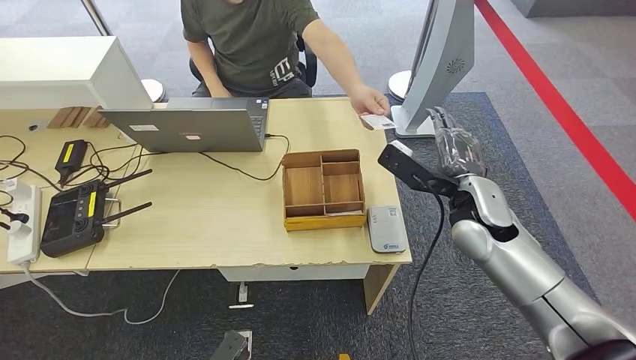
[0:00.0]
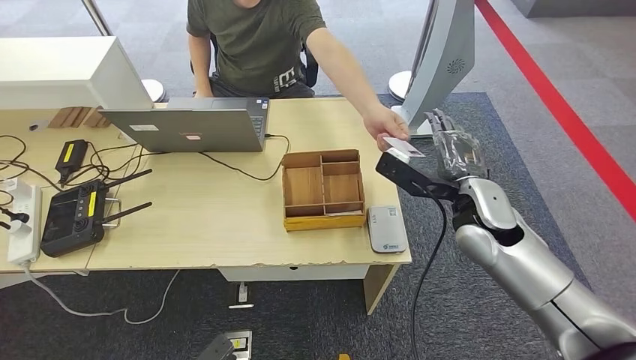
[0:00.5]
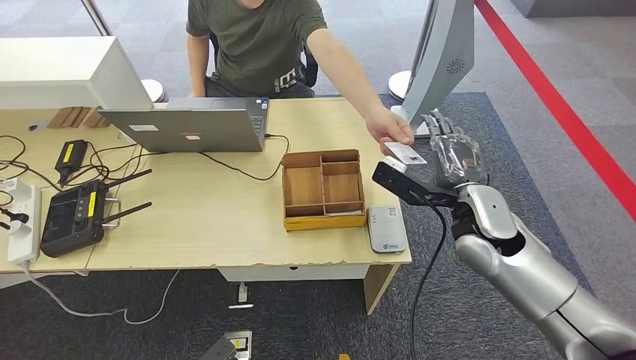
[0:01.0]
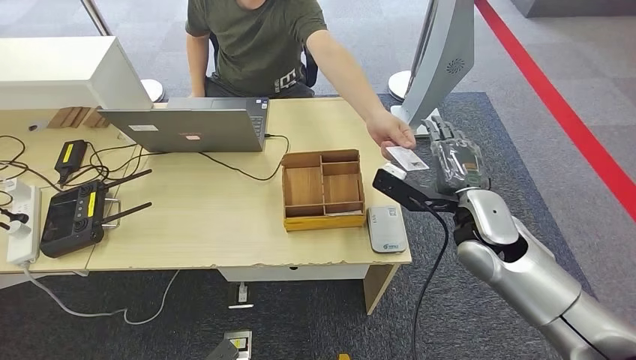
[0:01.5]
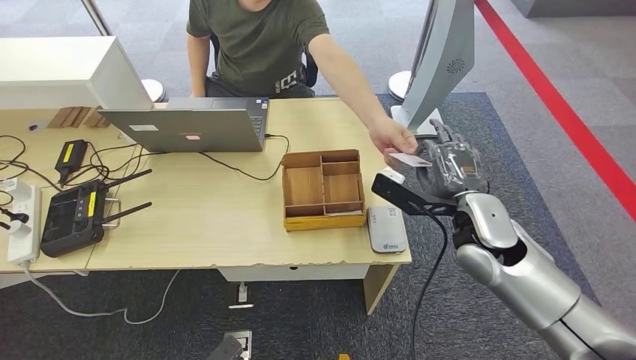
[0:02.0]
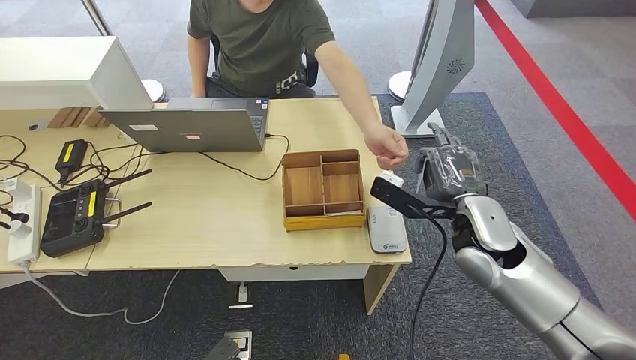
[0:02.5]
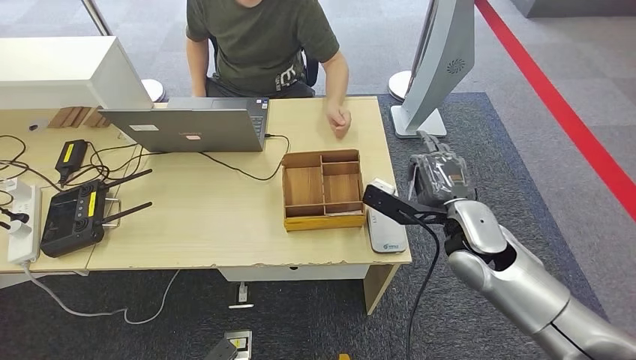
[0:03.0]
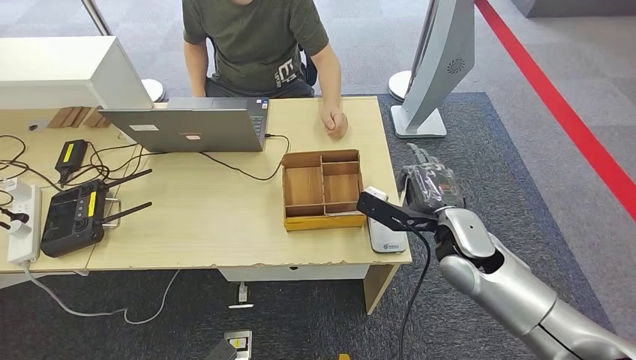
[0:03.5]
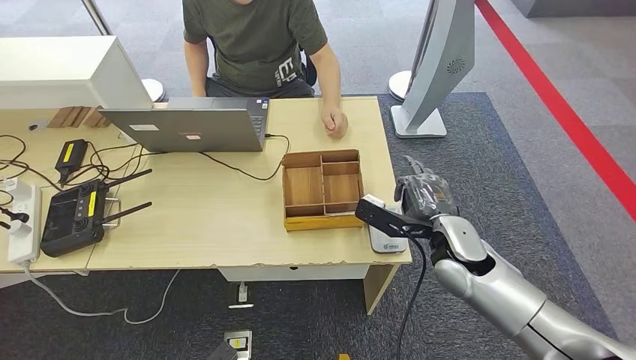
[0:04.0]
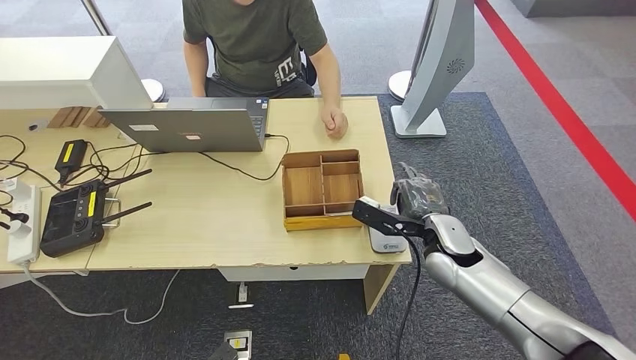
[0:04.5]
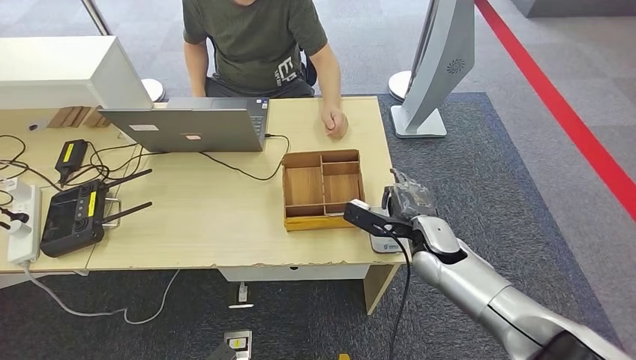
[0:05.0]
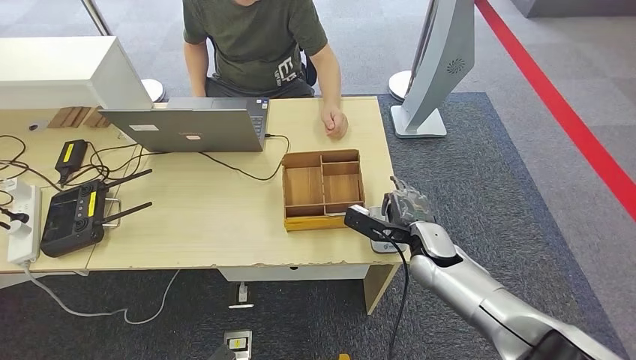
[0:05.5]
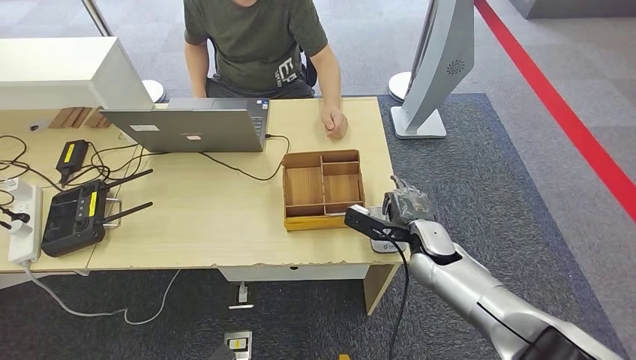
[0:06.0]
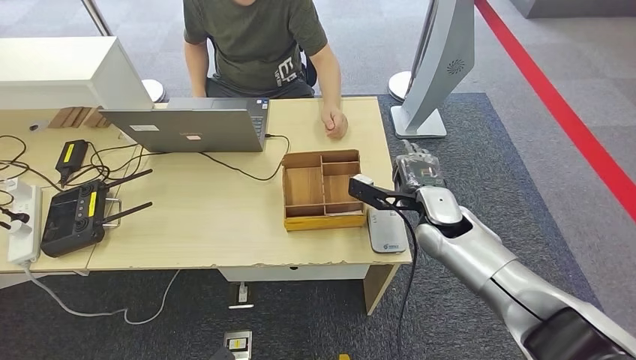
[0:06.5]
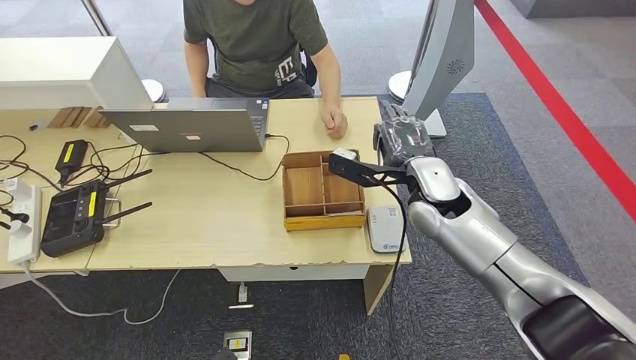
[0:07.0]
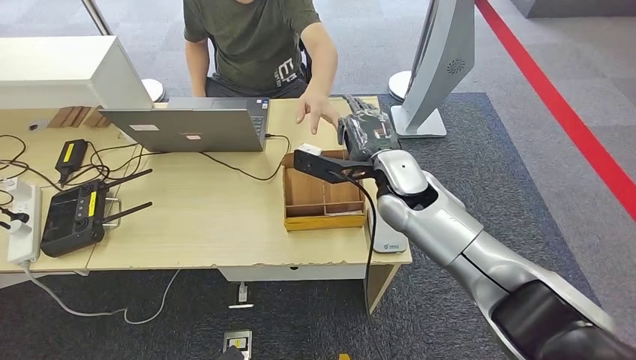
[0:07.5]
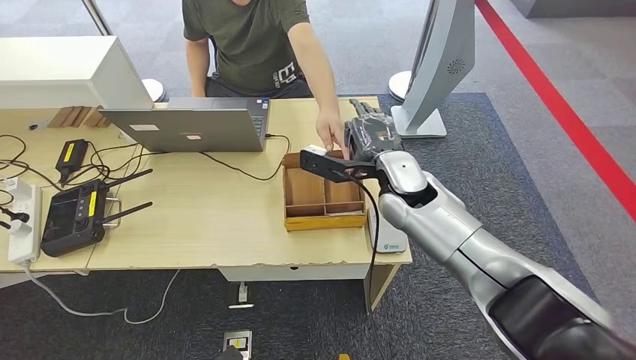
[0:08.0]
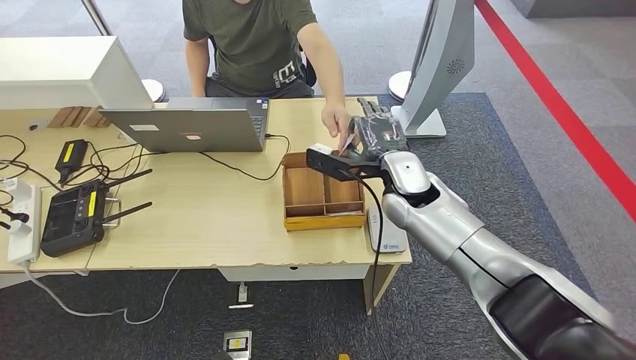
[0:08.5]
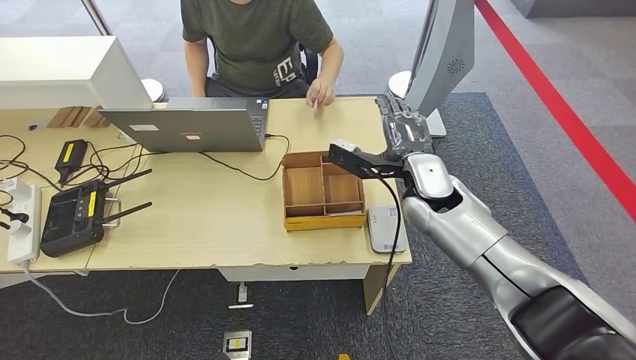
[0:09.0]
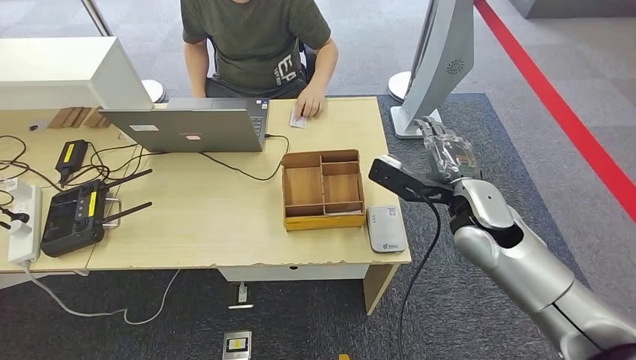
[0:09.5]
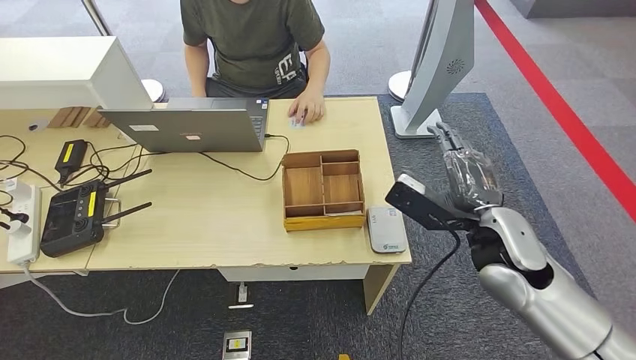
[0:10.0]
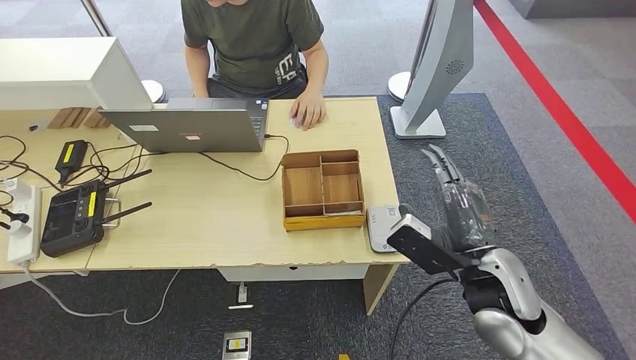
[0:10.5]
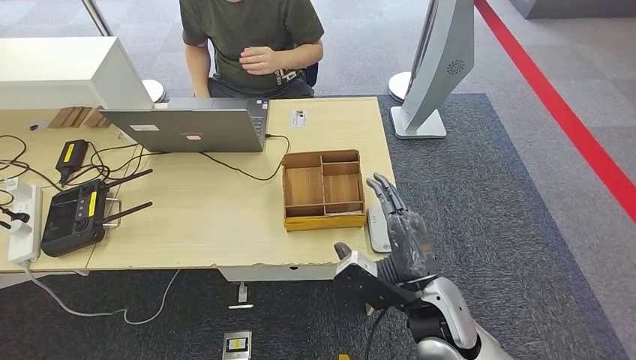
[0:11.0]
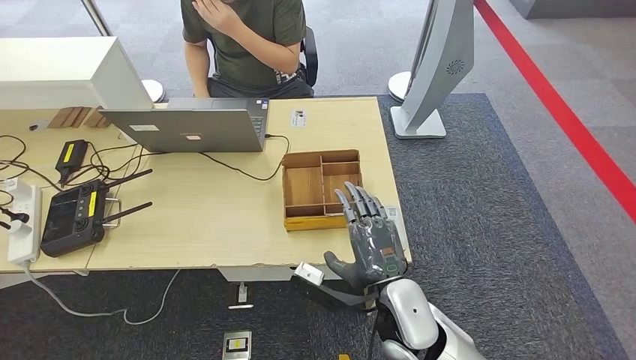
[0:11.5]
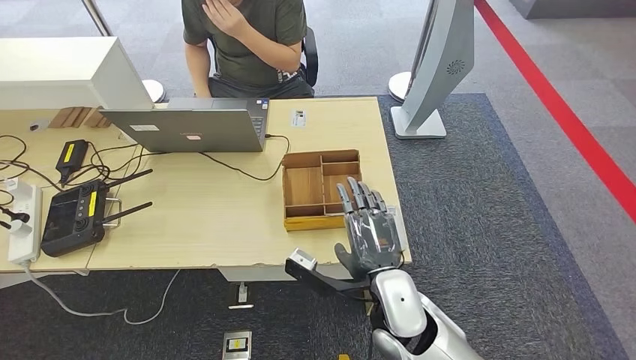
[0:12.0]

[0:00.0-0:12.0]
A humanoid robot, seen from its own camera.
Step, 0:00.0 to 0:02.5: Take the ID card from the person's hand.
Step, 0:03.0 to 0:06.0: Place the ID card on the card reader.
Step, 0:07.0 to 0:09.0: Hand the ID card to the person.
0:00.0 to 0:02.0: The hands move only a little.
0:02.0 to 0:04.0: The right hand moves downward, roughly 5 cm.
0:04.0 to 0:06.0: The right hand moves downward, about 5 cm.
0:06.0 to 0:08.0: The right hand is displaced upward, to the left and forward by approximately 15 cm.
0:08.0 to 0:10.0: The left hand heads backward, covering some 5 cm. Meanwhile the right hand goes approximately 15 cm backward and to the right.
0:10.0 to 0:12.0: The right hand shifts approximately 20 cm to the left and downward.

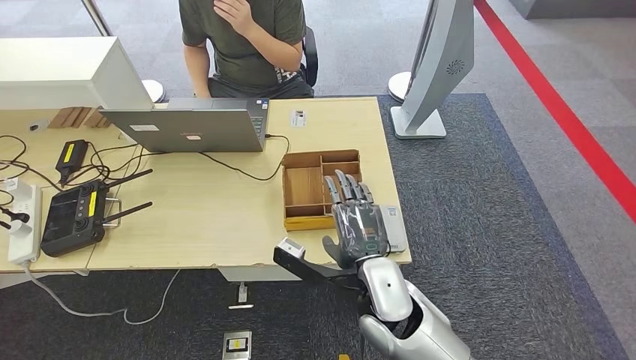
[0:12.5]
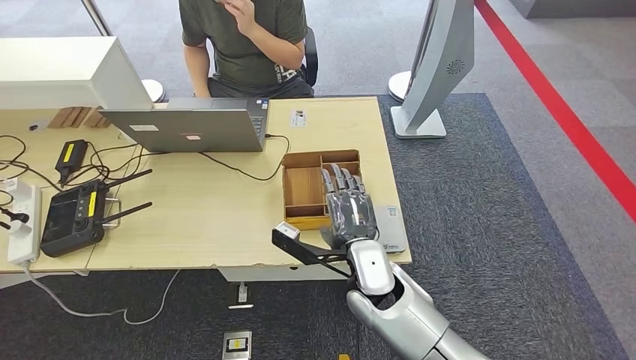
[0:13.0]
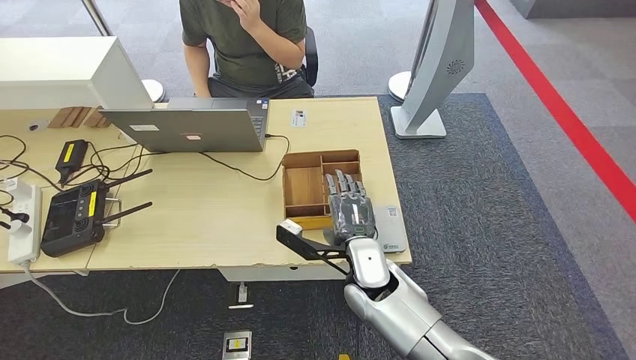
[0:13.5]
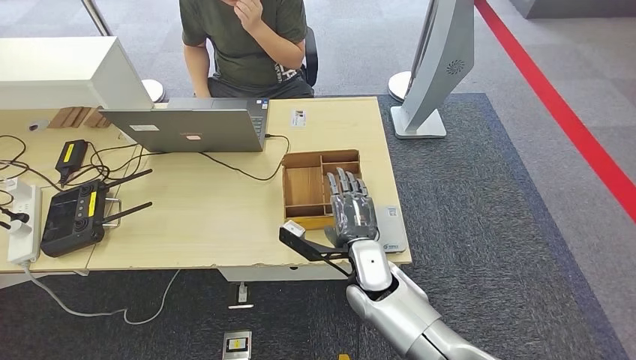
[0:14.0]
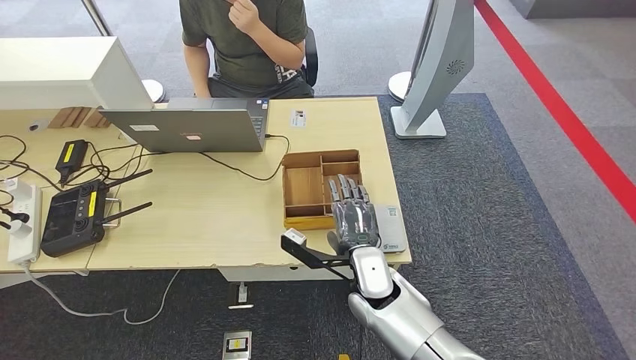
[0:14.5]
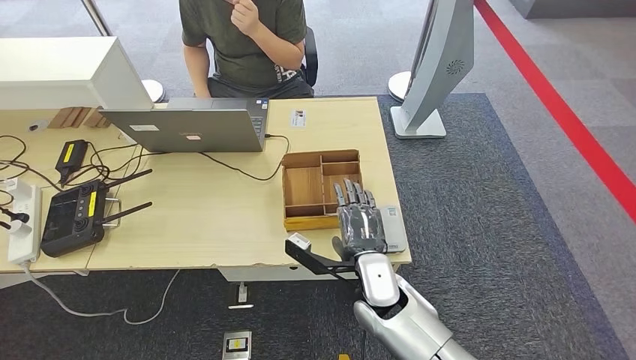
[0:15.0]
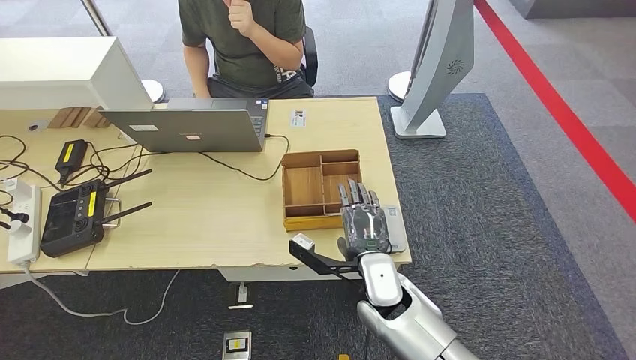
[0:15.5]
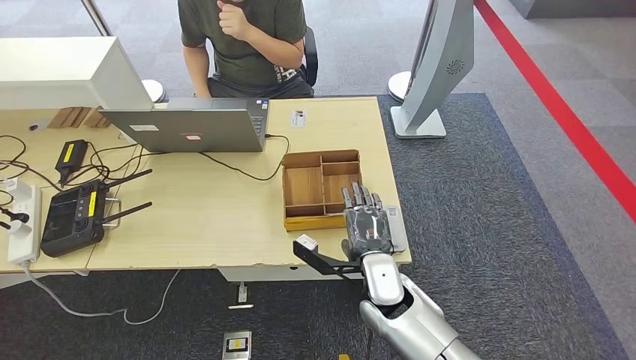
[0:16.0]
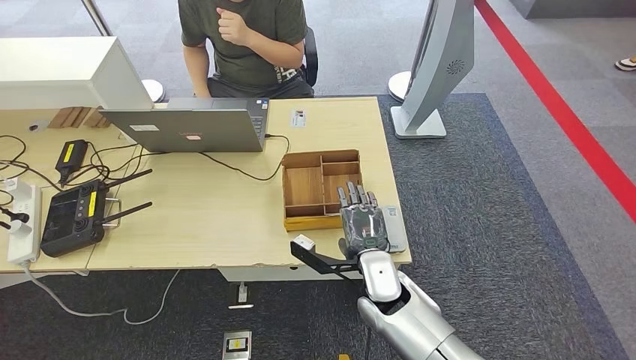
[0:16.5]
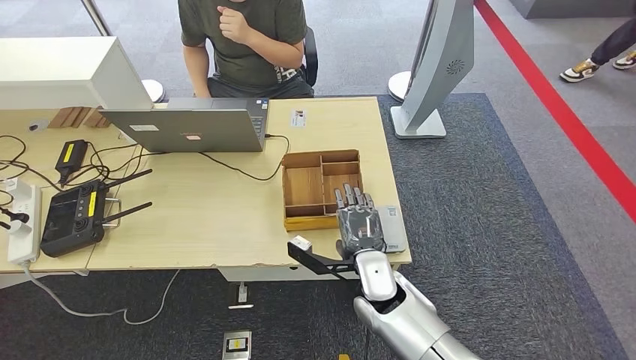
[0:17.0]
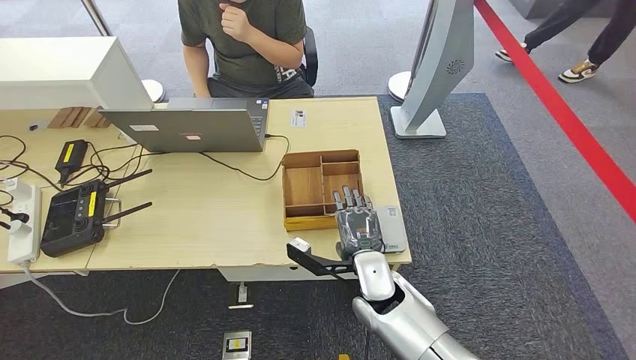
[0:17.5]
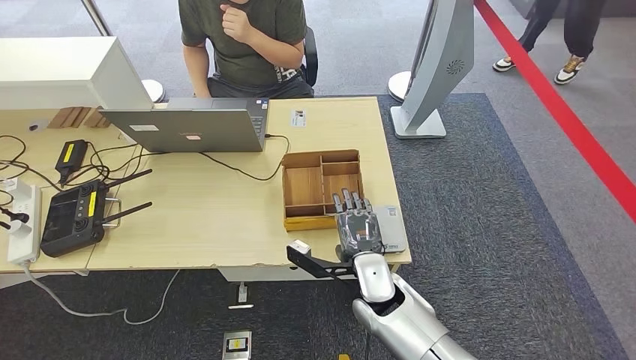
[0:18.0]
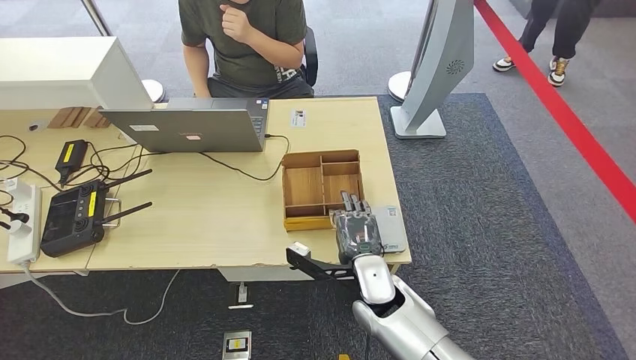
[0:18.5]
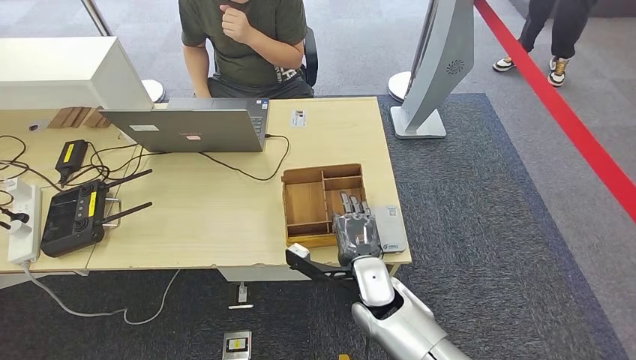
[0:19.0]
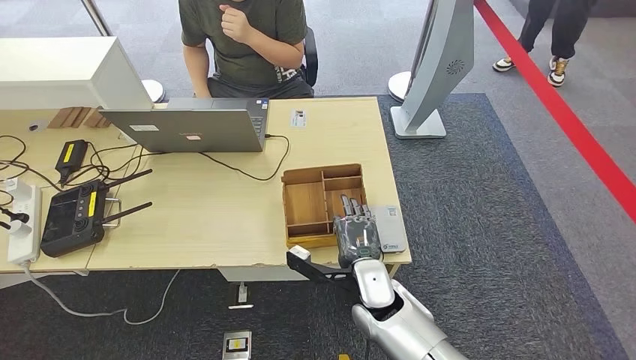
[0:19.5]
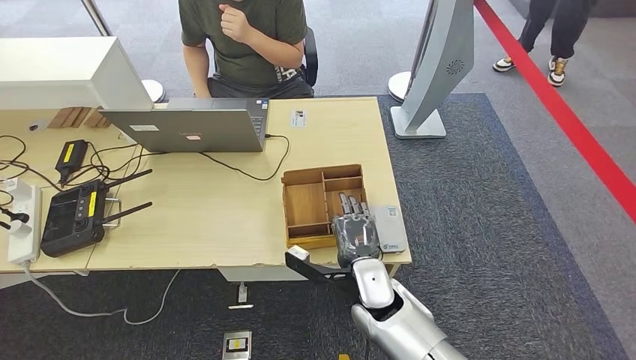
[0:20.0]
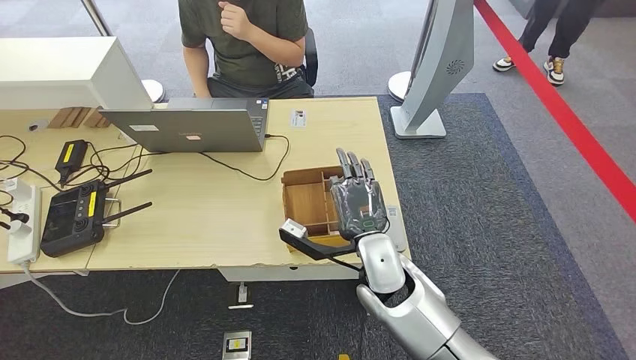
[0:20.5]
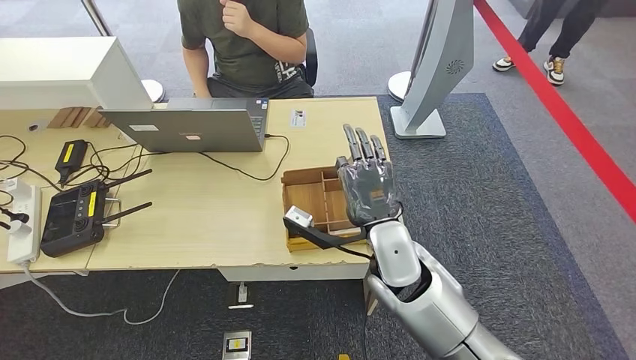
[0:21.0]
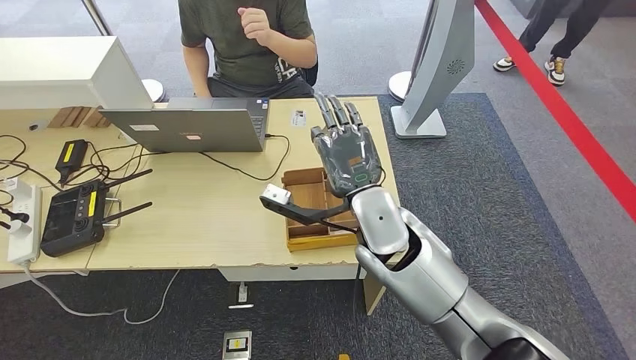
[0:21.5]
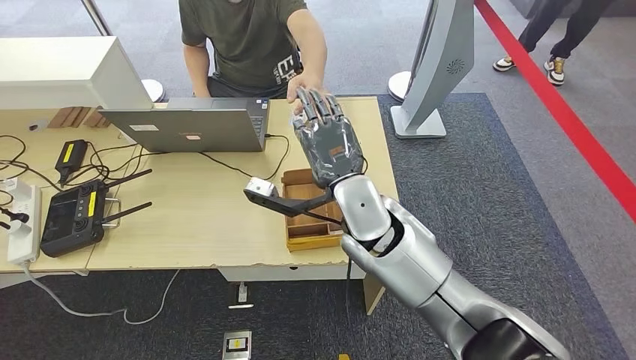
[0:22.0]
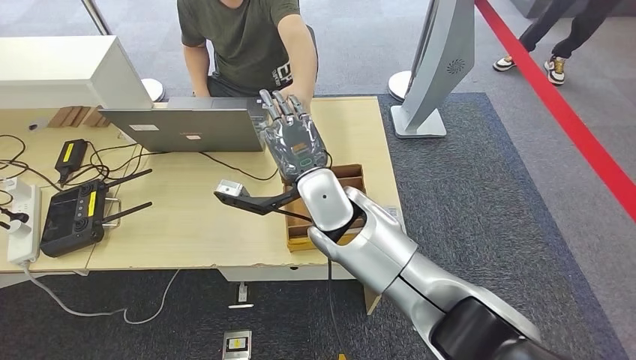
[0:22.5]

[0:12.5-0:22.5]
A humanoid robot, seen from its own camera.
Step, 0:12.5 to 0:19.0: Pick up the room key from the key card box.
Step, 0:19.5 to 0:22.5: Hand the room key to the person.
0:12.5 to 0:14.5: The right hand heads downward, covering roughly 5 cm.
0:14.5 to 0:18.5: The hands stay close to where they were, moving slightly.
0:18.5 to 0:20.5: The right hand travels upward by approximately 5 cm.
0:20.5 to 0:22.5: The right hand is displaced upward, to the left and forward by approximately 15 cm.
